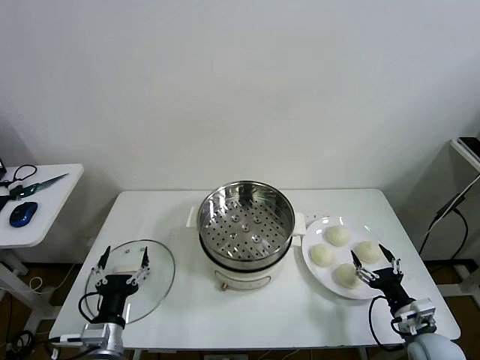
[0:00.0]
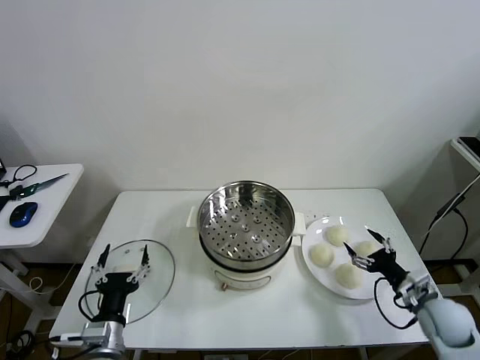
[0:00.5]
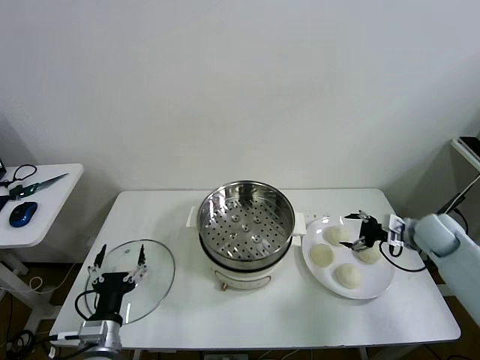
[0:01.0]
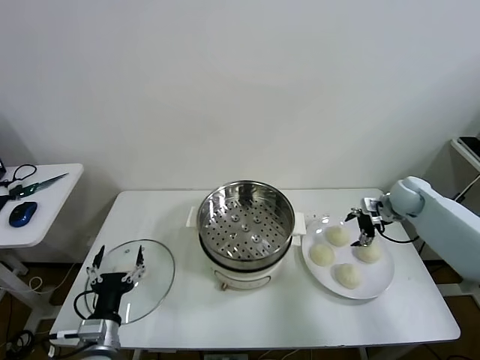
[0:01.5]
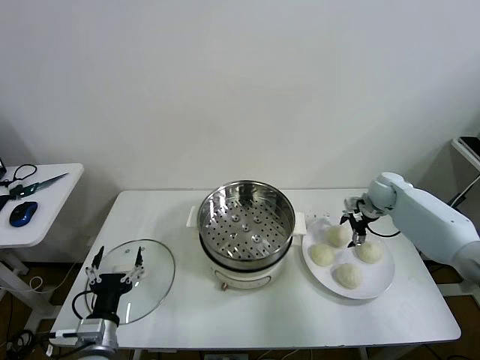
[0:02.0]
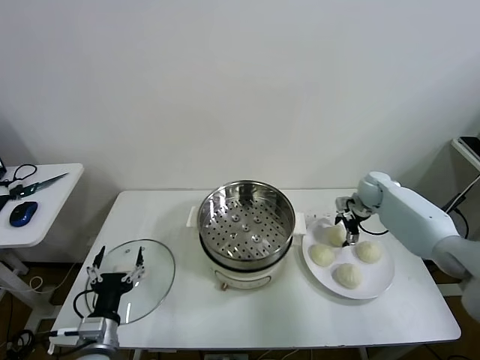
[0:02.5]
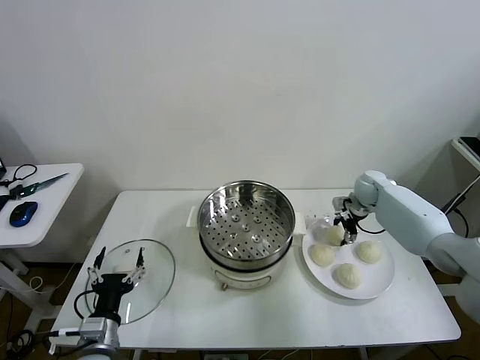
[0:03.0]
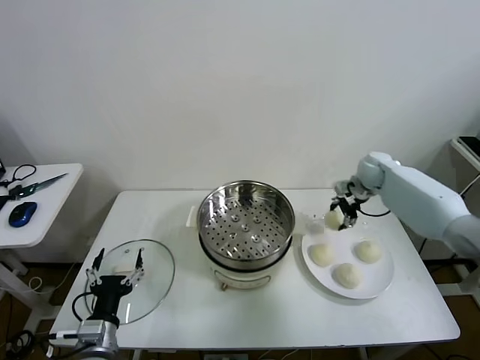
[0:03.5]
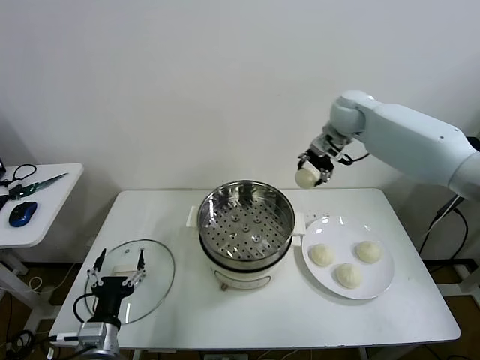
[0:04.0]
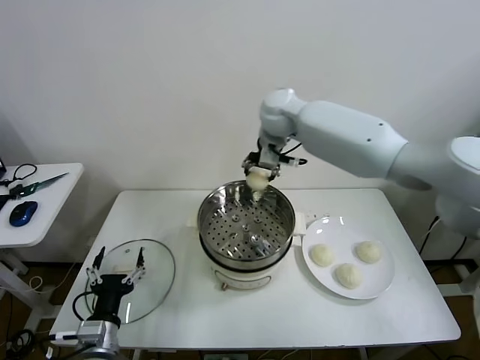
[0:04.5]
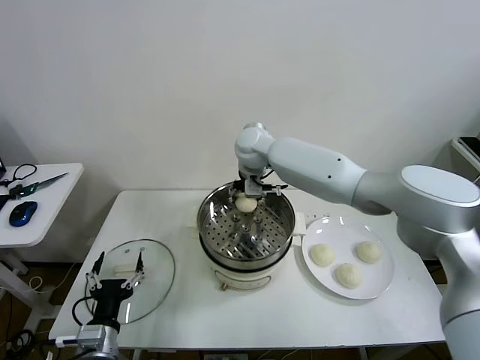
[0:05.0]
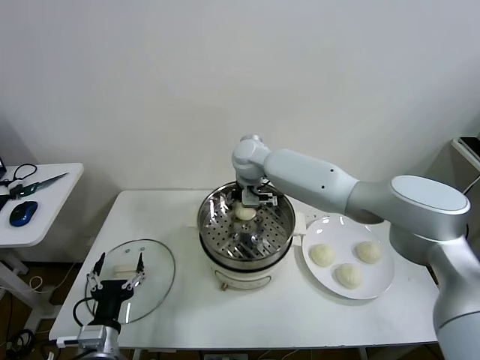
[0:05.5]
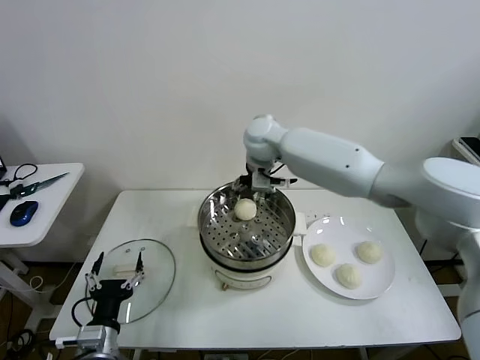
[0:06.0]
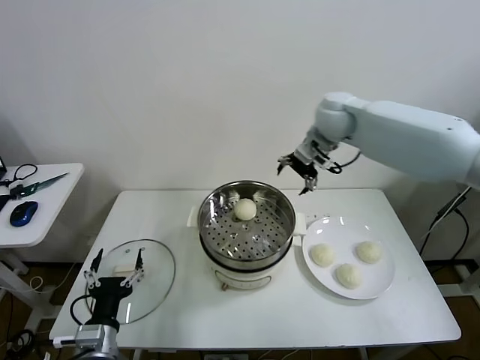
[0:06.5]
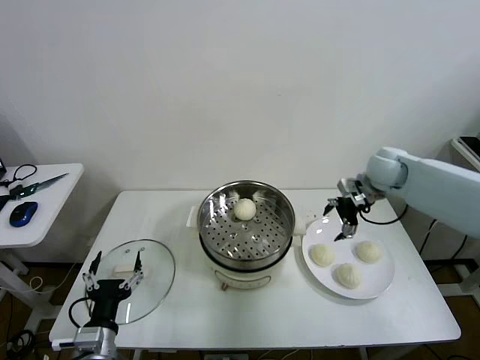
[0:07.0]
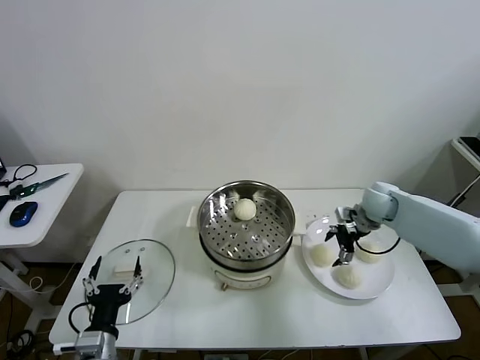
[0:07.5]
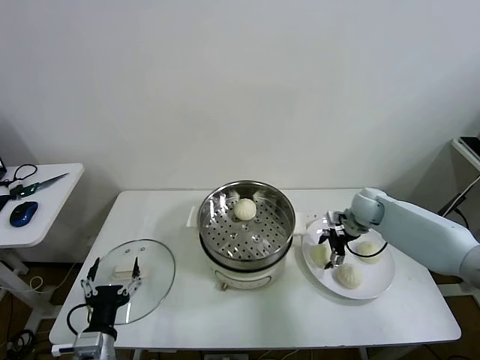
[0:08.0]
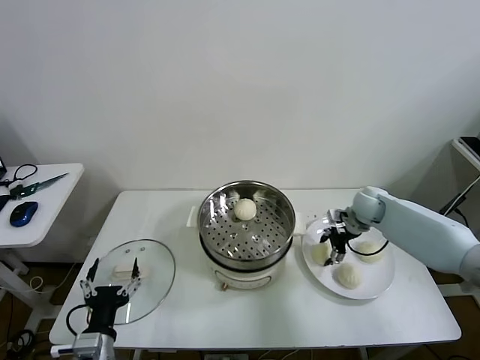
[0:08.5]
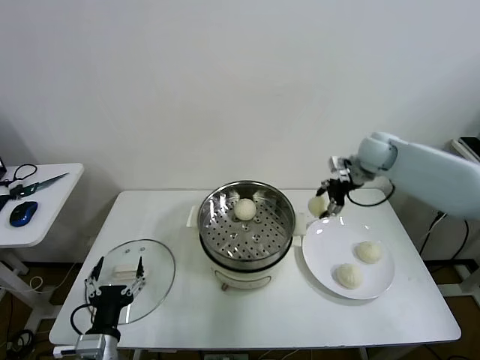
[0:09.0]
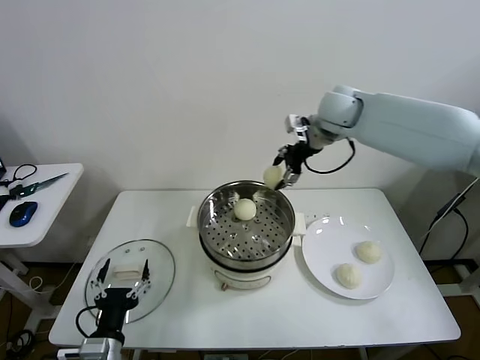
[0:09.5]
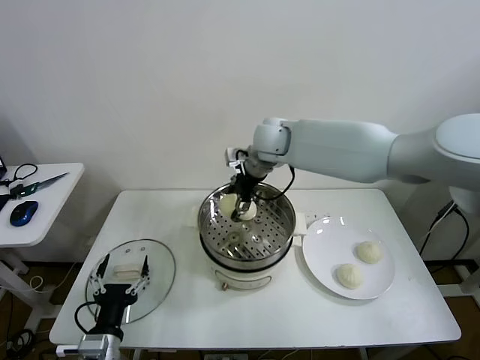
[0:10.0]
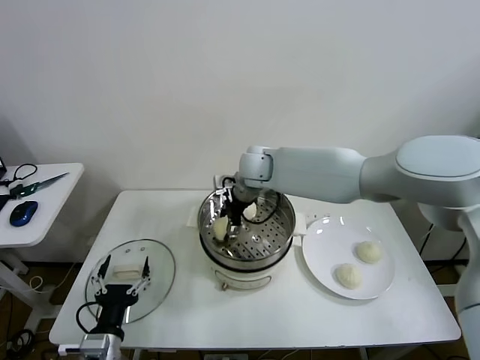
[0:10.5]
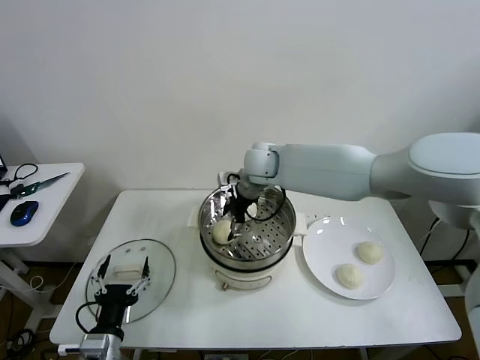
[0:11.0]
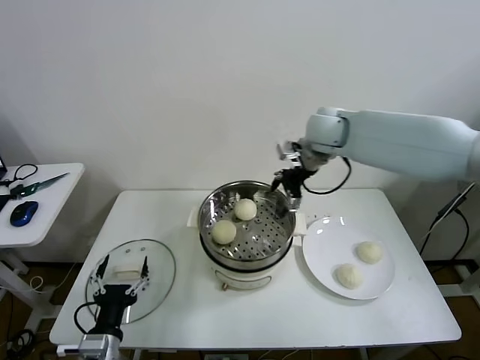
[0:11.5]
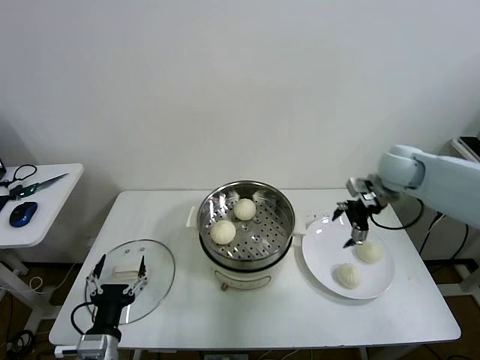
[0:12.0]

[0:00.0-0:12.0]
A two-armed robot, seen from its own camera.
Task of the whole recording: take steamed baozi put them in steamer then cover it.
Step, 0:00.0 to 0:03.0: Grasp the baozi in the plate with right gripper.
Step, 0:03.5 to 0:05.5: Place the baozi on the steamer with right gripper.
Step, 0:06.0 to 0:08.0: Grasp the baozi in the plate with right gripper.
Step, 0:08.5 to 0:10.5: Place the baozi on the steamer with right gripper.
0:02.0 to 0:04.0: The right gripper goes approximately 30 cm upward and to the left, and closes.
0:04.0 to 0:06.0: The right gripper goes roughly 15 cm to the left, and opens up.
0:06.0 to 0:08.0: The right gripper moves to the right and downward, approximately 35 cm.
0:08.0 to 0:10.0: The right gripper goes about 35 cm to the left and upward, and closes.
0:10.0 to 0:12.0: The right gripper moves to the right, approximately 30 cm, and opens.

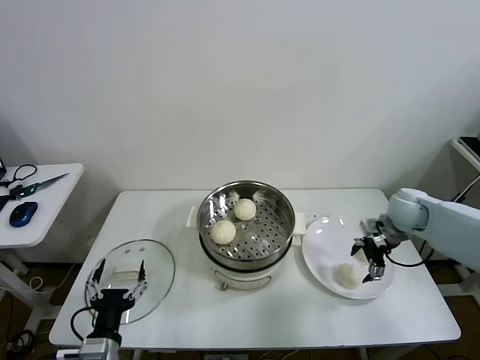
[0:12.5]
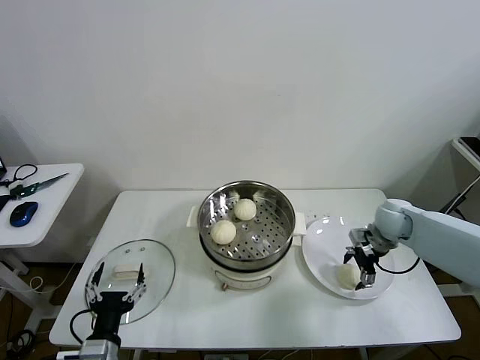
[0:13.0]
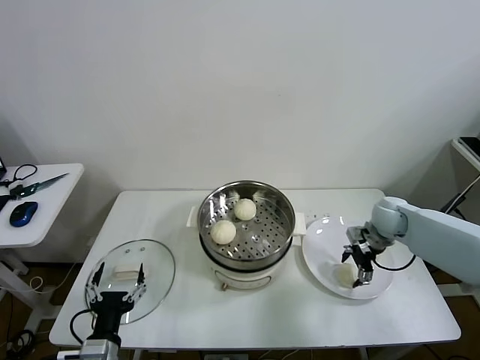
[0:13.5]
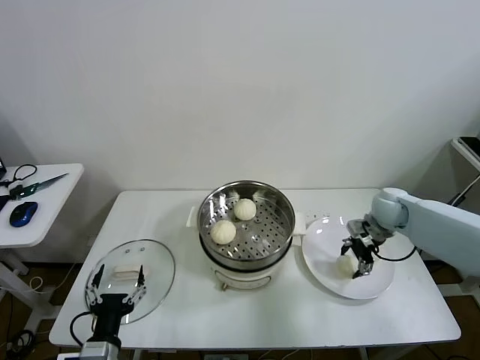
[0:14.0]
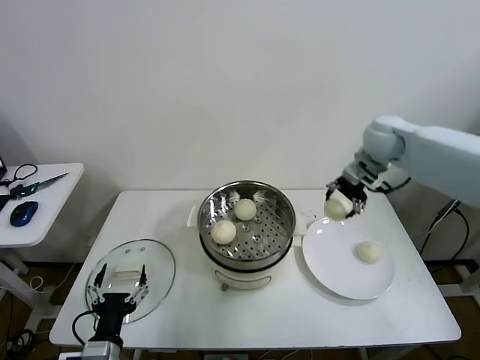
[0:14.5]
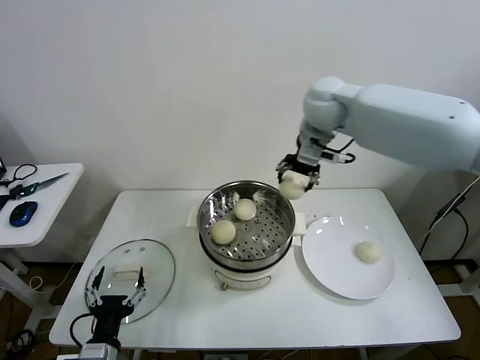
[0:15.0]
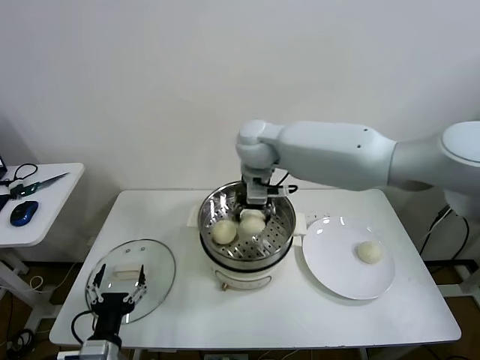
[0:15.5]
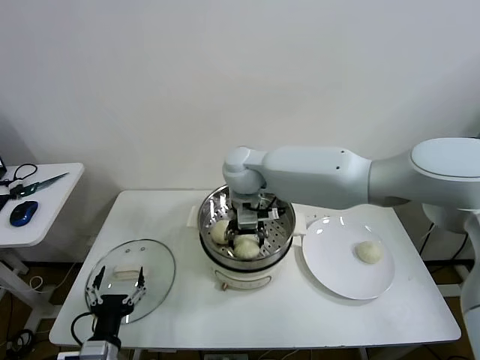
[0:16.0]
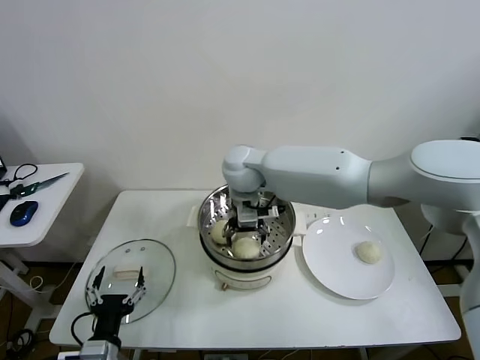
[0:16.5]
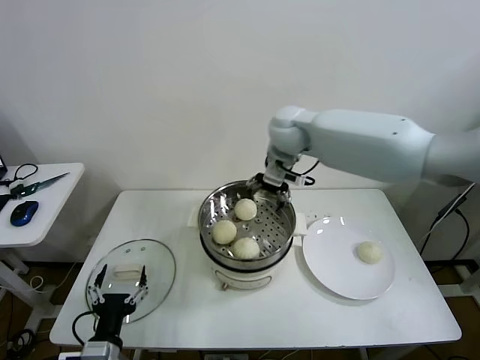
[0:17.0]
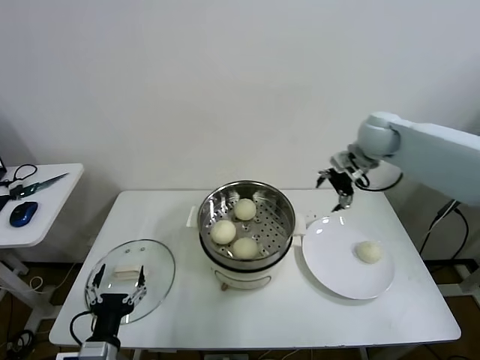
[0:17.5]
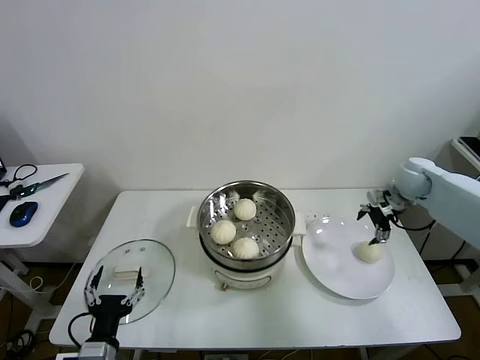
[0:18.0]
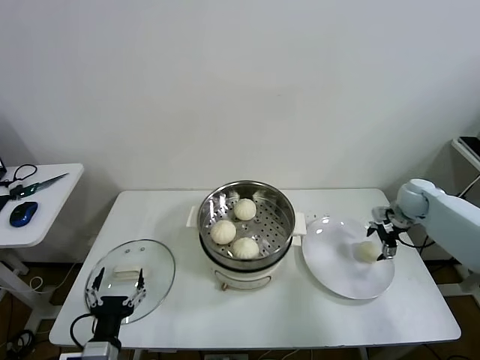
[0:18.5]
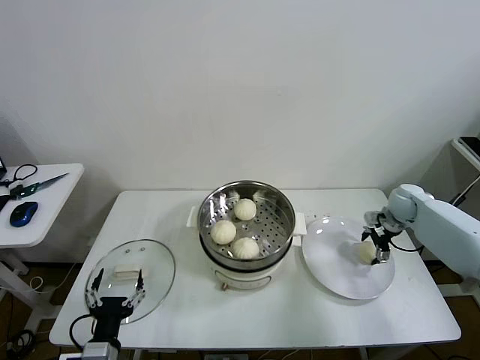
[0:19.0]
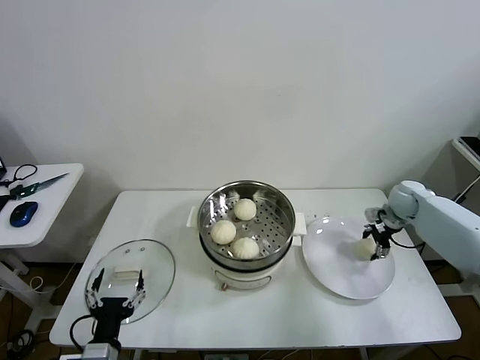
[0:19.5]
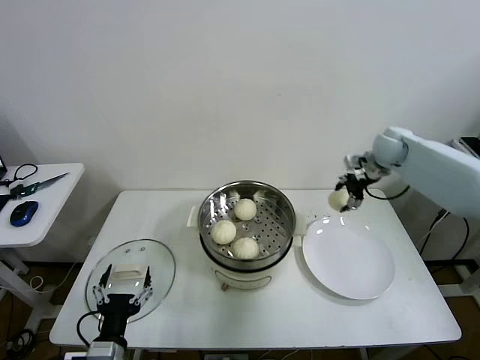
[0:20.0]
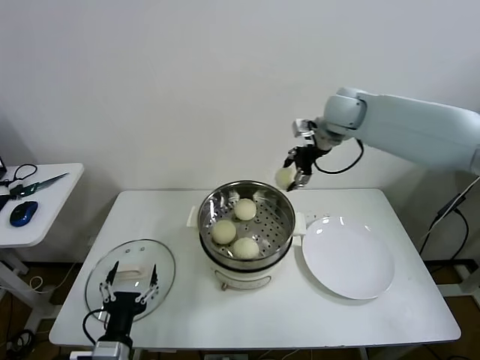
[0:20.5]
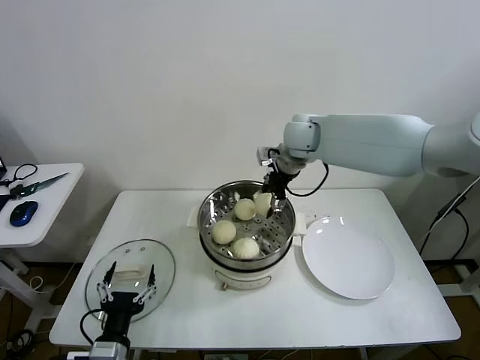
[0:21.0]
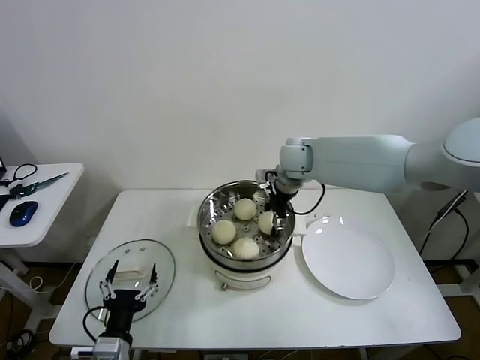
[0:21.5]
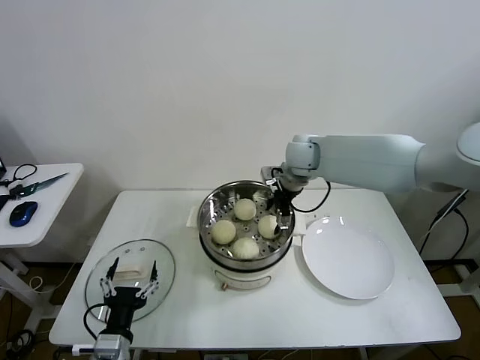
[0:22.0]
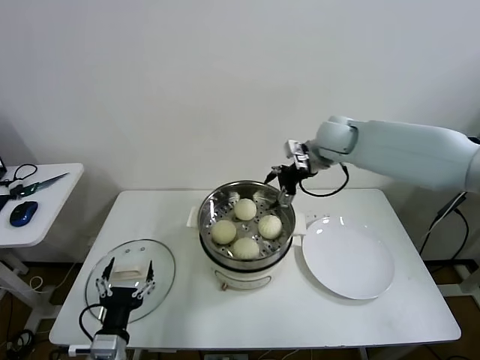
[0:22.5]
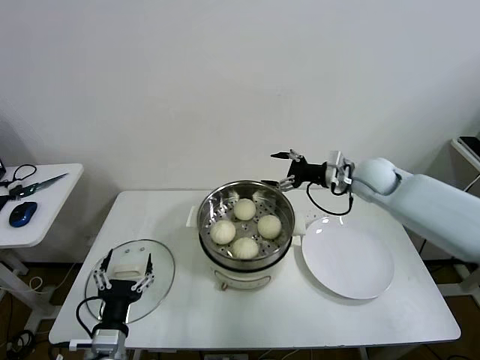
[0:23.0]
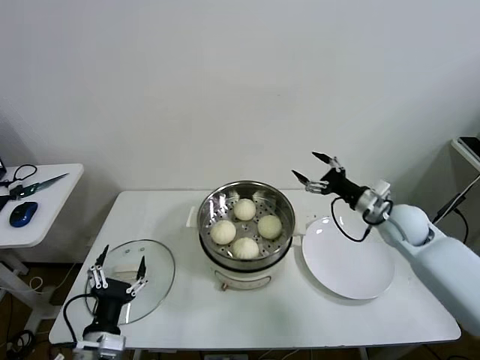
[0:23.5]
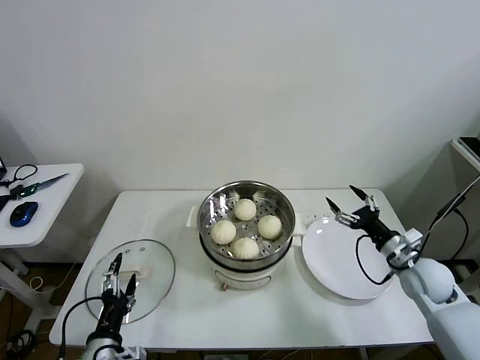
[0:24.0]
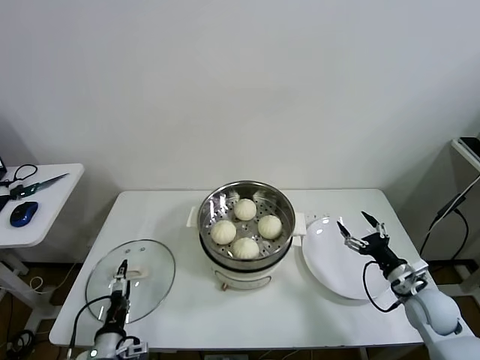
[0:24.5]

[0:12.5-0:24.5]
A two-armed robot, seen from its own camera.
Task of the whole recording: take steamed baozi put them in steamer then cover it.
Step, 0:14.0 to 0:16.0: Place the baozi on the steamer with right gripper.
Step, 0:17.0 to 0:19.0: Grasp the baozi in the plate with right gripper.
Step, 0:19.5 to 0:21.5: Place the baozi on the steamer with right gripper.
0:12.5 to 0:14.5: The right gripper goes about 20 cm upward, to the left and forward, and closes its fingers.
0:14.5 to 0:16.5: The right gripper heads to the left, covering about 30 cm, and opens its fingers.
0:16.5 to 0:18.5: The right gripper heads to the right, covering approximately 50 cm.
0:18.5 to 0:20.5: The right gripper heads to the left and upward, covering roughly 35 cm, and closes.
0:20.5 to 0:22.5: The right gripper moves downward, some 5 cm, and opens its fingers.
0:22.5 to 0:24.5: The right gripper goes some 40 cm downward, backward and to the right. Meanwhile the left gripper shifts approximately 5 cm downward.

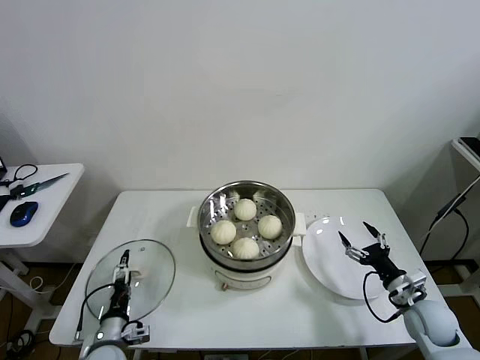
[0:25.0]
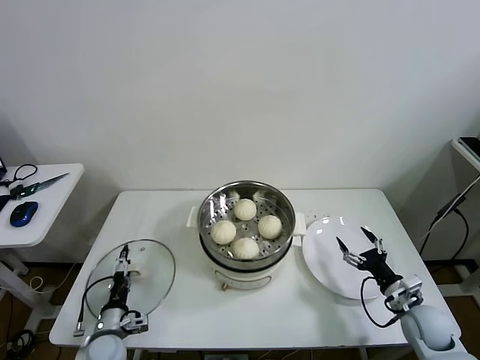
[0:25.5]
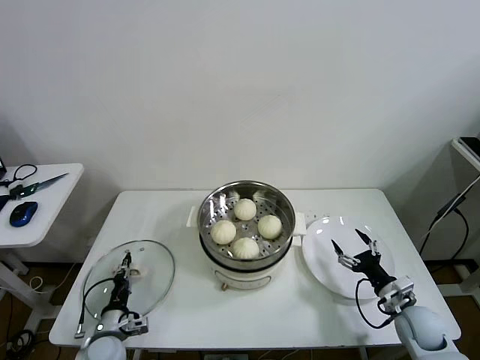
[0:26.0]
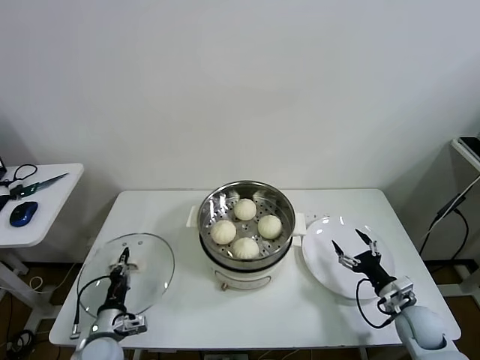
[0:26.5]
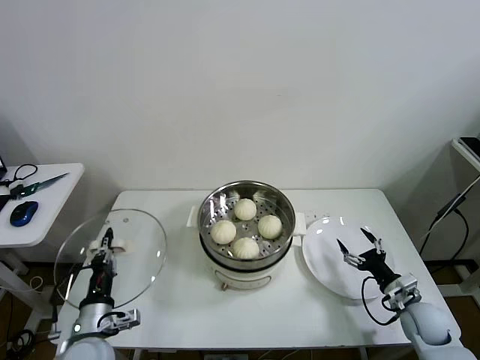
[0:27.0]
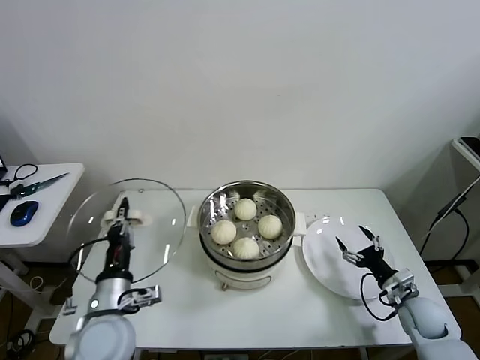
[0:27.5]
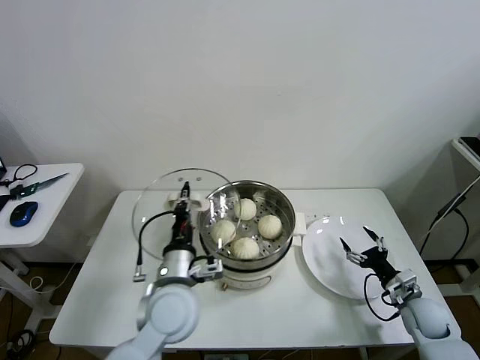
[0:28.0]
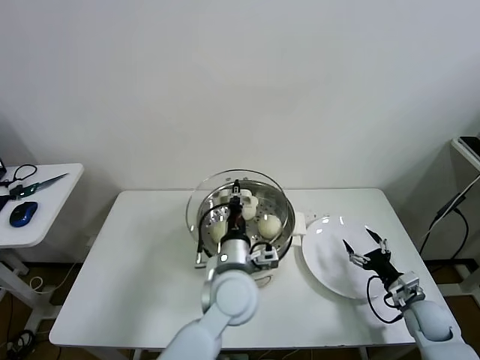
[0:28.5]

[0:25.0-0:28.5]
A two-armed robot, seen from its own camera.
Task of the whole recording: take steamed baozi put them in steamer then cover it.
0:25.0 to 0:27.0: The left gripper is displaced upward by approximately 10 cm, and closes its fingers.
0:27.0 to 0:28.5: The left gripper travels to the right by roughly 25 cm.
